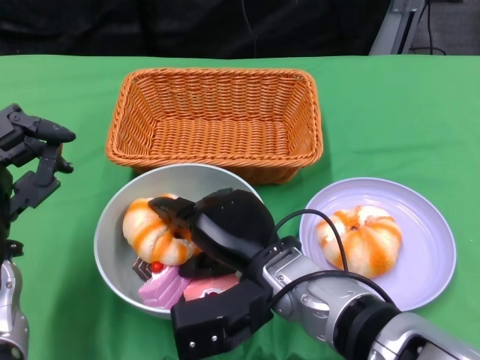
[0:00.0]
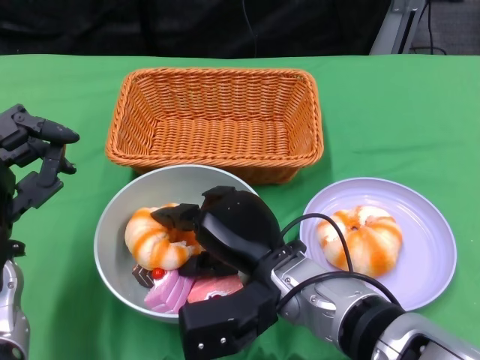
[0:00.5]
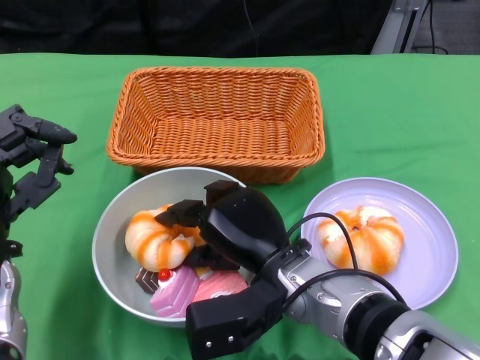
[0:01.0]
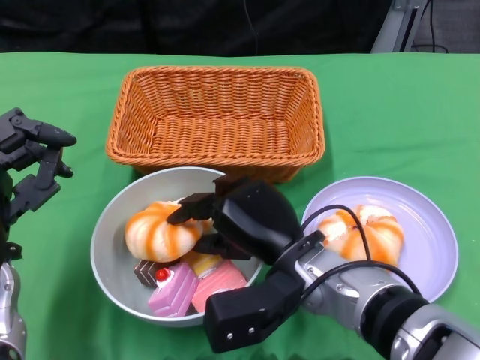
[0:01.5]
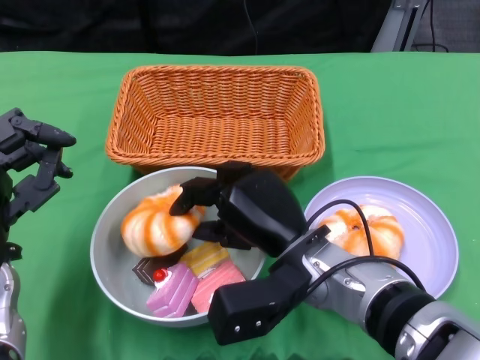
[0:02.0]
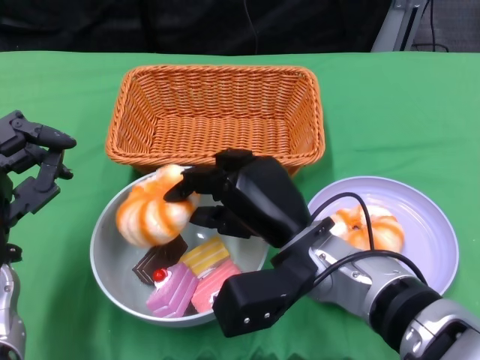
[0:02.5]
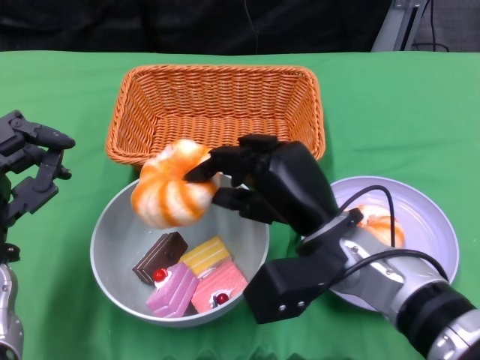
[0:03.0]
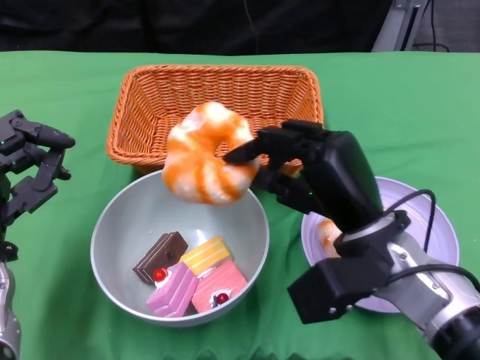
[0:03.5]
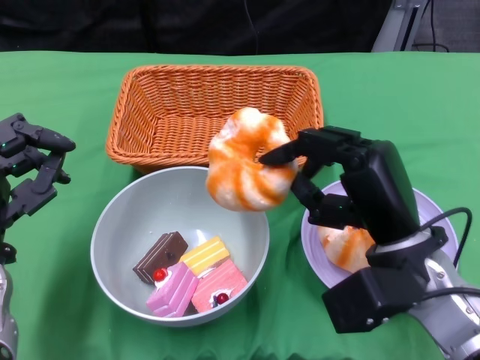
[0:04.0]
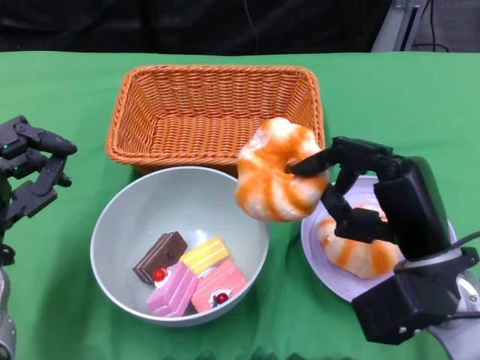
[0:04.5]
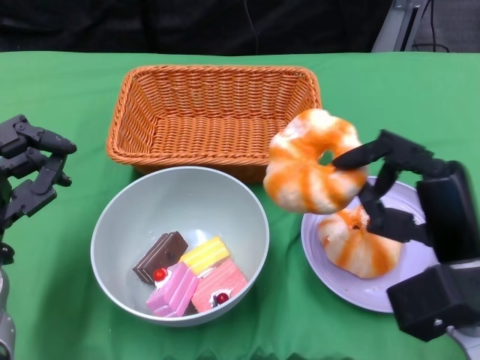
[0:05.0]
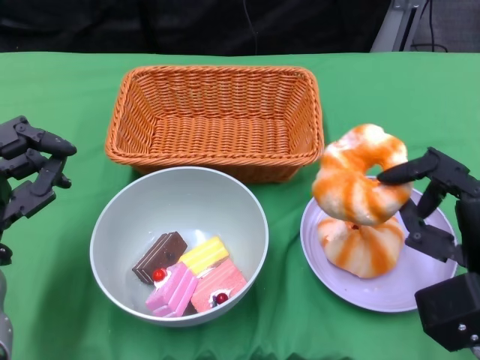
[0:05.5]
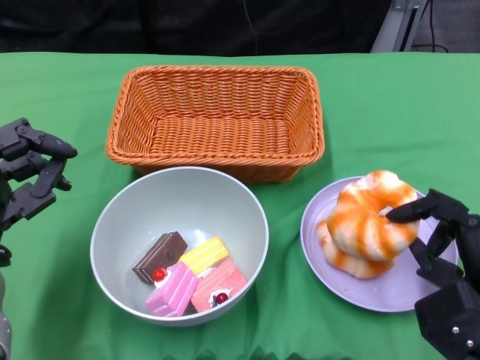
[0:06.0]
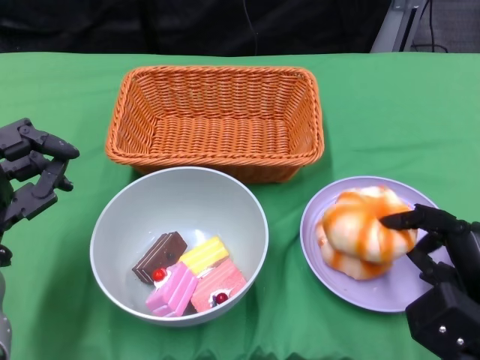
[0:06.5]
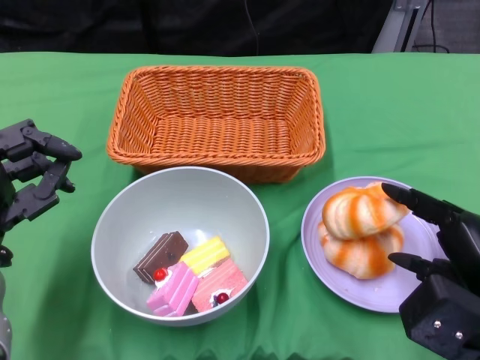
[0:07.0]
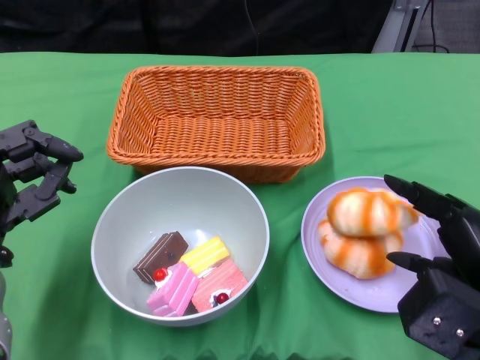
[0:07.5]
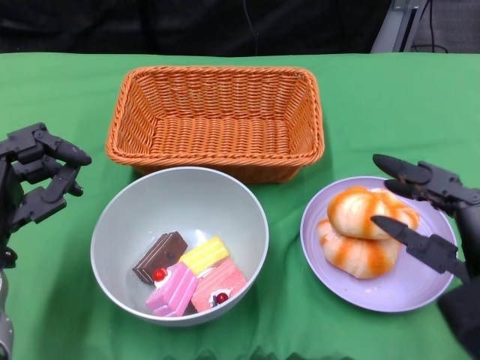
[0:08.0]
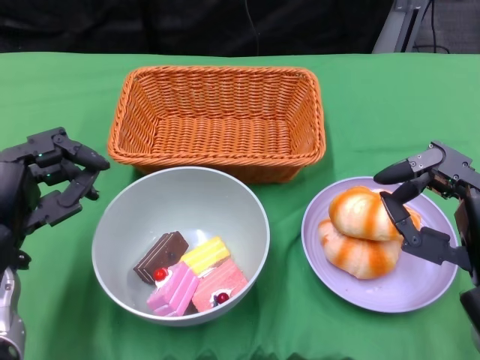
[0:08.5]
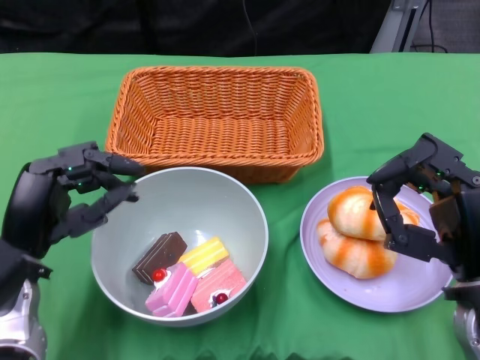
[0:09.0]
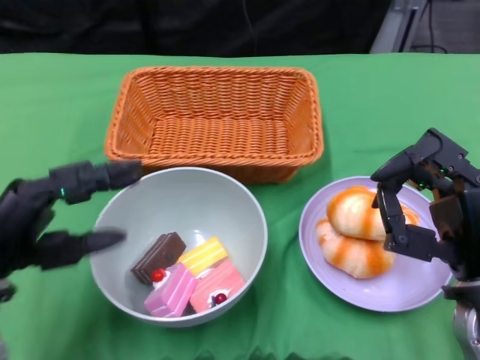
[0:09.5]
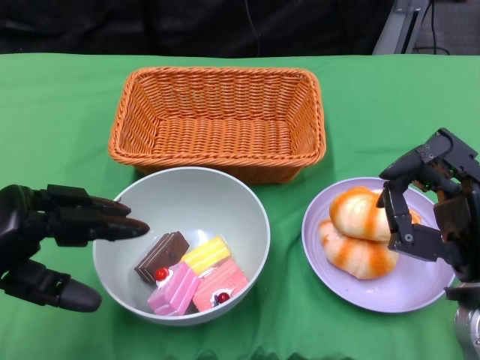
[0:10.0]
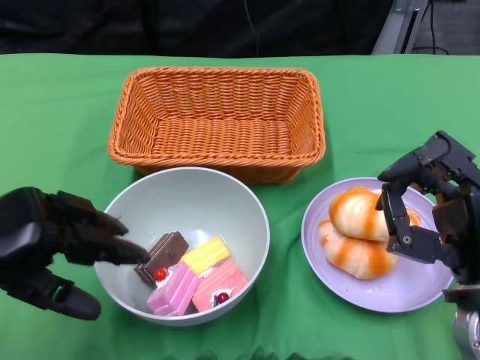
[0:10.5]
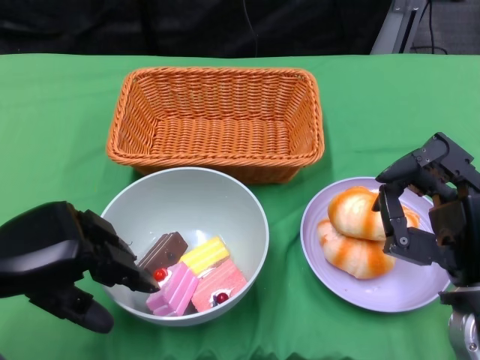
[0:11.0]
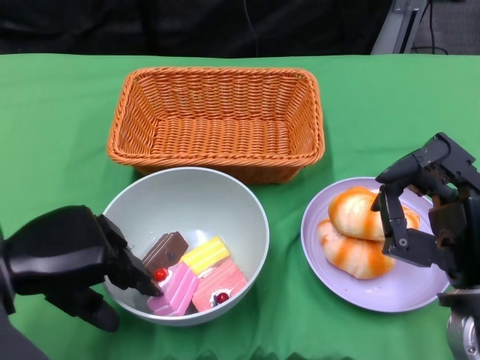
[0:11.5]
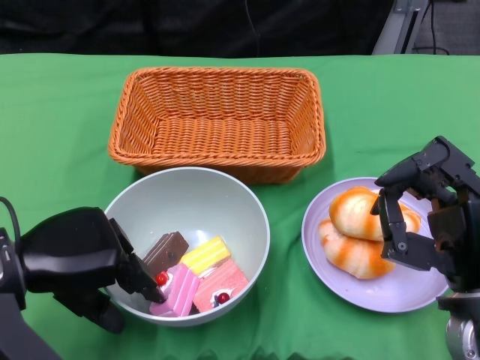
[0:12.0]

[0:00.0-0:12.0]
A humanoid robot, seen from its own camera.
Step, 0:00.0 to 0:07.5: Pick up the bread with the right gripper and place it on the plate.
0:02.0 to 0:04.0: The right hand travels to the right by approximately 10 cm.
0:04.0 to 0:06.0: The right hand shifts approximately 10 cm to the right and downward.
0:06.0 to 0:08.0: The right hand moves upward, roughly 5 cm.
0:08.0 to 0:10.0: The left hand moves about 5 cm.
0:10.0 to 0:12.0: The left hand shifts by some 5 cm.

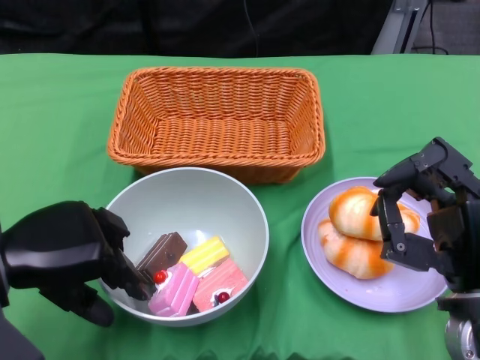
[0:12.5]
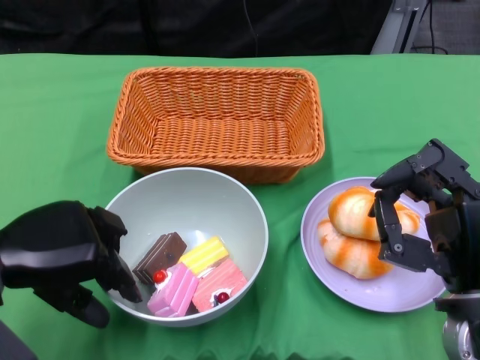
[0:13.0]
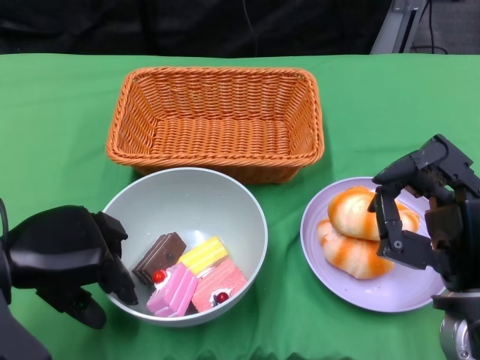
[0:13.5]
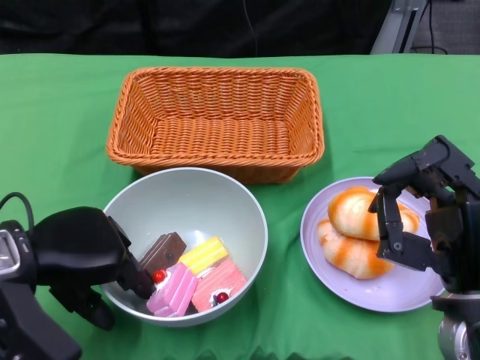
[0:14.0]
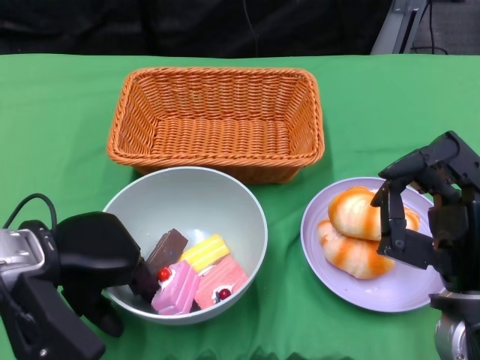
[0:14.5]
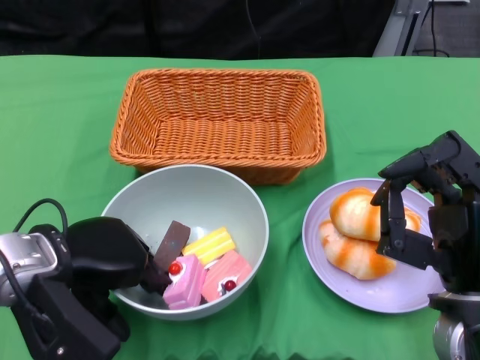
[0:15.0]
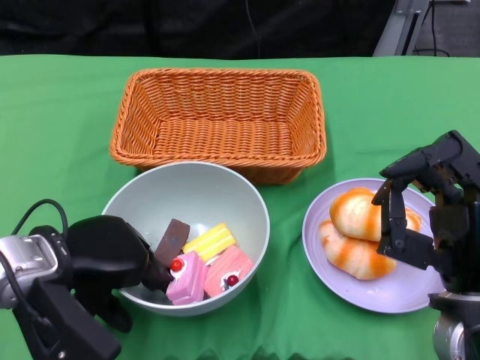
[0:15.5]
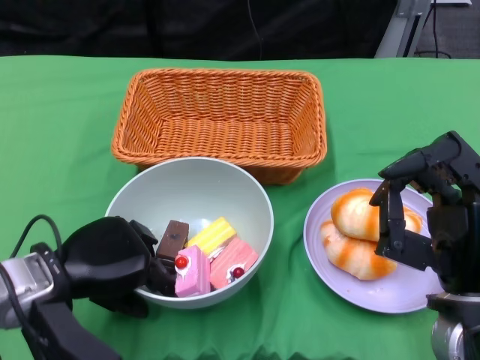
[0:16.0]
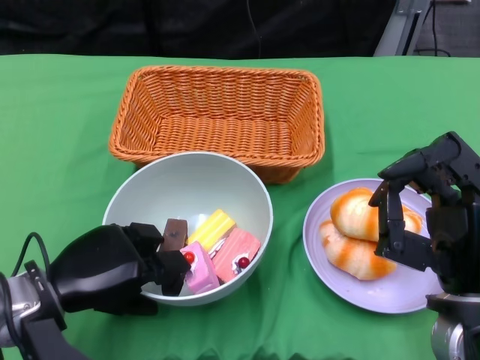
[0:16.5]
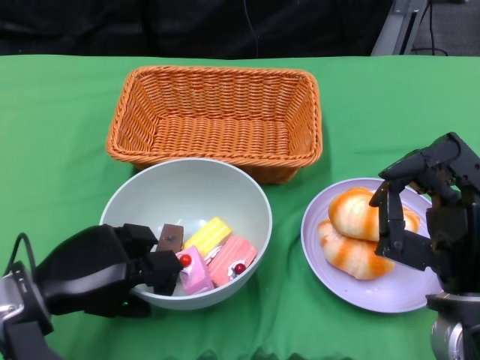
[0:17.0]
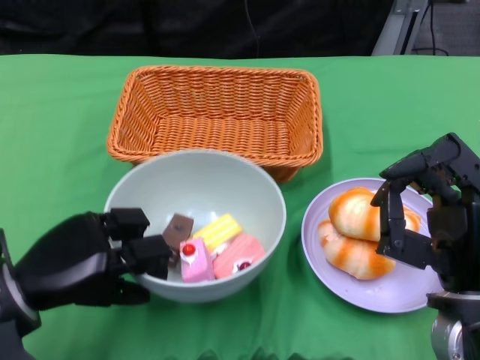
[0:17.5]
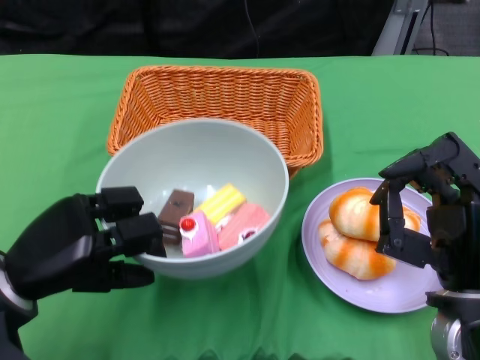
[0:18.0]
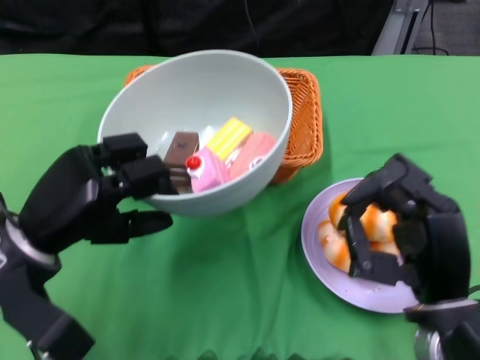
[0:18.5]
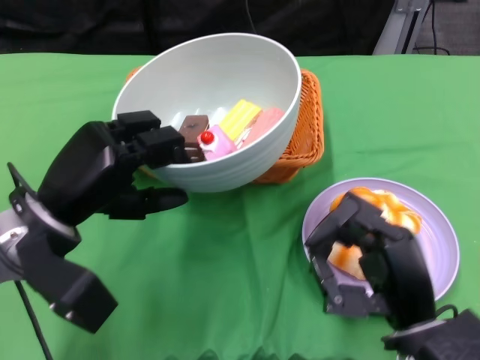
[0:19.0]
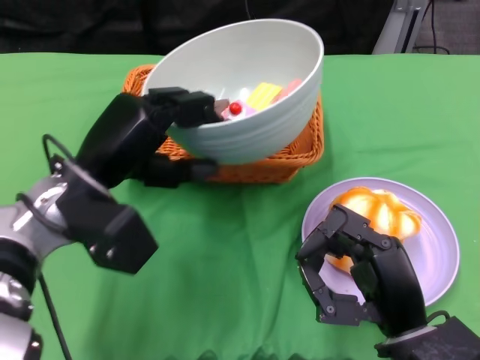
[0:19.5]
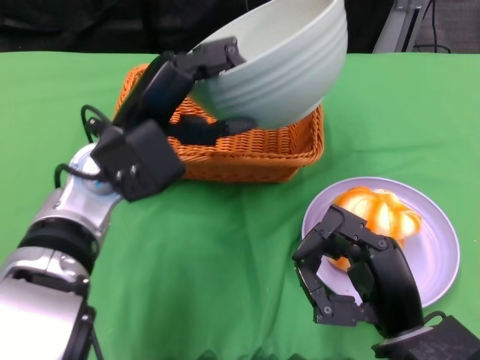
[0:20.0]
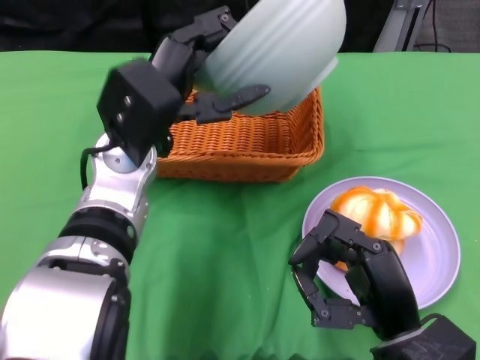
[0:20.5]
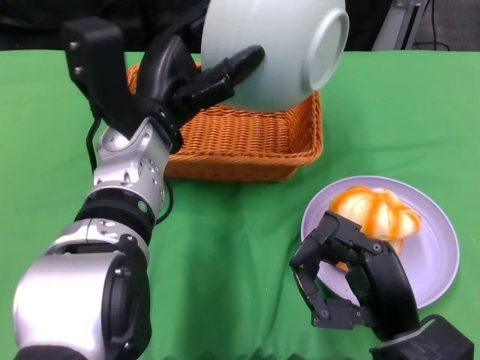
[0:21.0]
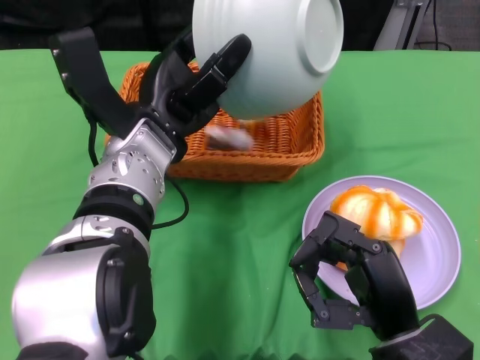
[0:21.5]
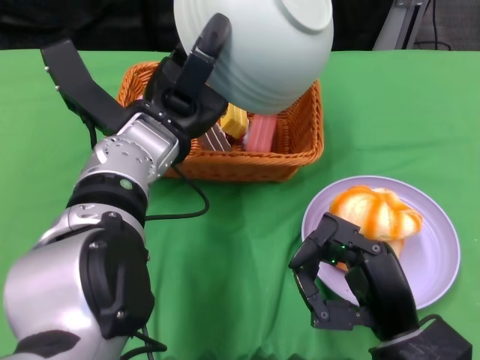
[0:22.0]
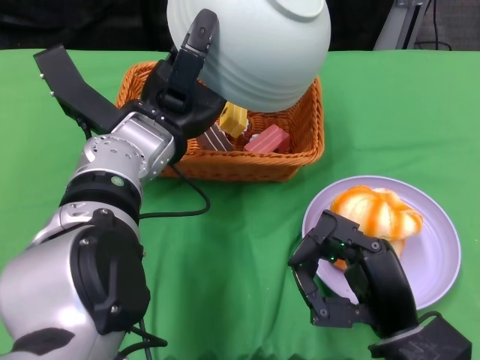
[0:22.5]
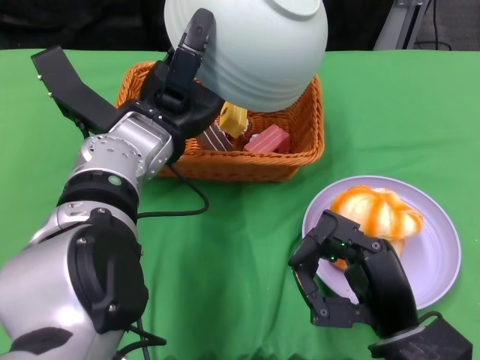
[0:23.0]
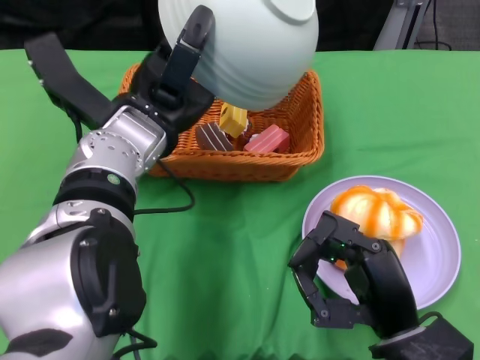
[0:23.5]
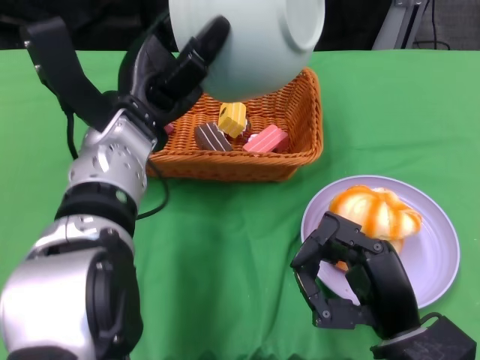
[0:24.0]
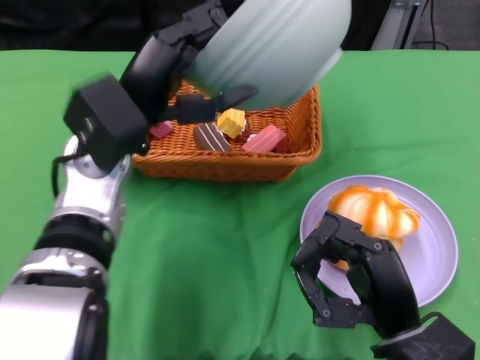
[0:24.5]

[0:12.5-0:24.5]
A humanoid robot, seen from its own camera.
Step, 0:12.5 to 0:16.5: Grasp the bowl with the left gripper.
Step, 0:17.0 to 0:23.0: Pour the cake into the basket with the left gripper.
0:14.5 to 0:16.5: The left hand travels downward by some 5 cm.
0:16.5 to 0:18.5: The left hand heads upward, covering about 5 cm.
0:18.5 to 0:20.5: The left hand is displaced to the right, forward and upward by about 15 cm.

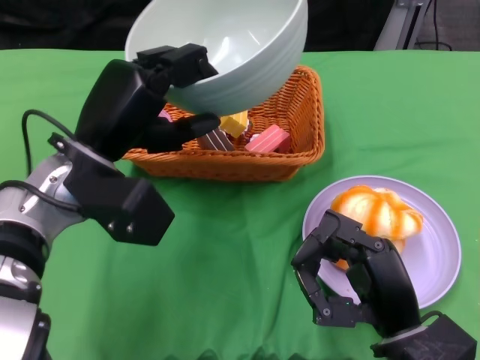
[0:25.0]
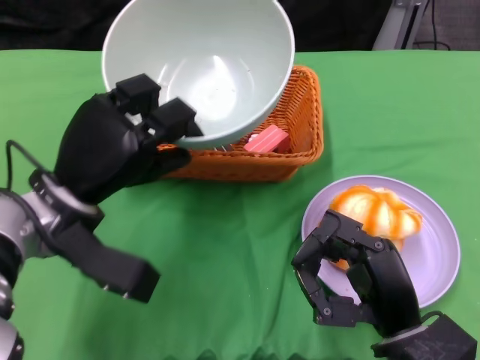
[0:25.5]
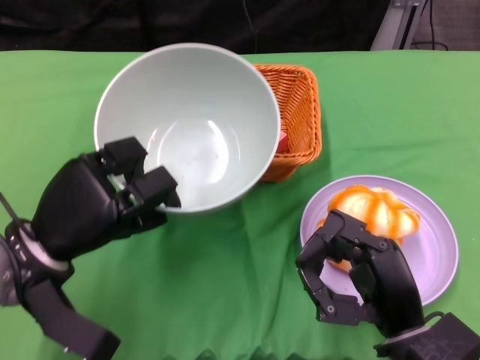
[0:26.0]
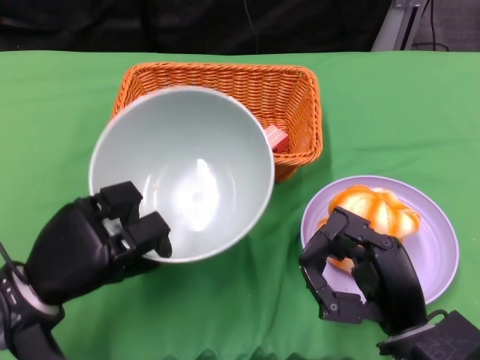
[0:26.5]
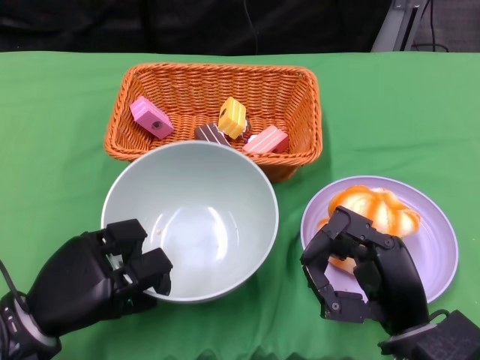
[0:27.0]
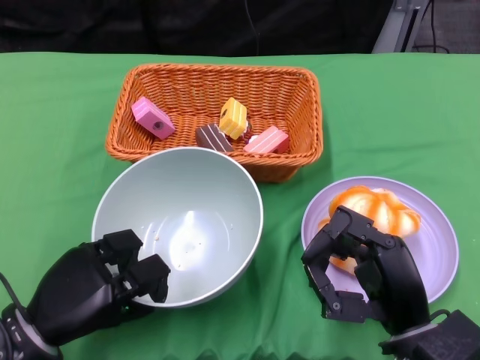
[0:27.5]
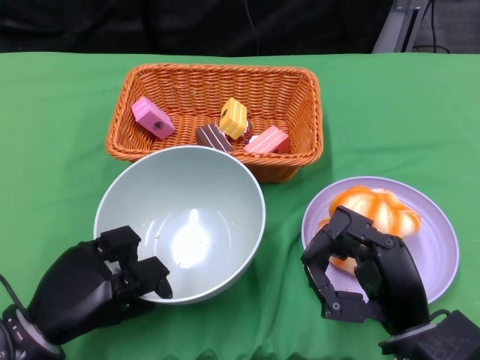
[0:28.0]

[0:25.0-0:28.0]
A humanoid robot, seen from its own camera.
0:25.0 to 0:26.5: The left hand is displaced downward, backward and to the left by approximately 15 cm.
